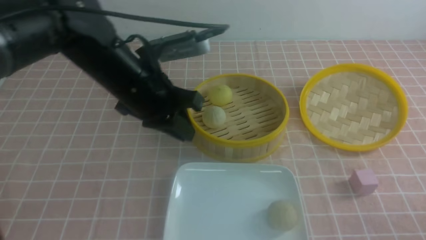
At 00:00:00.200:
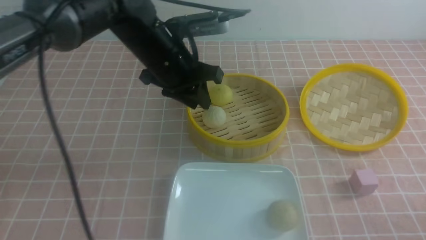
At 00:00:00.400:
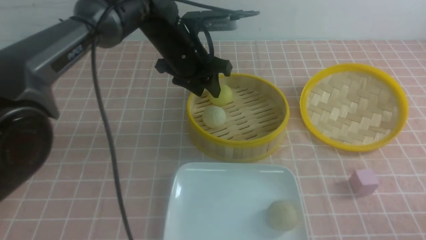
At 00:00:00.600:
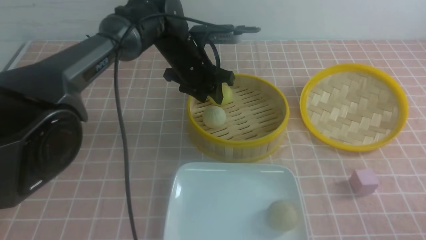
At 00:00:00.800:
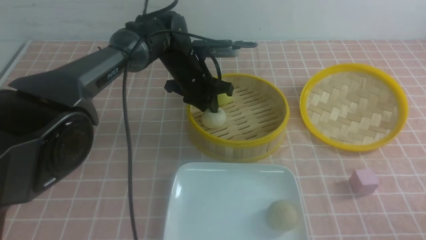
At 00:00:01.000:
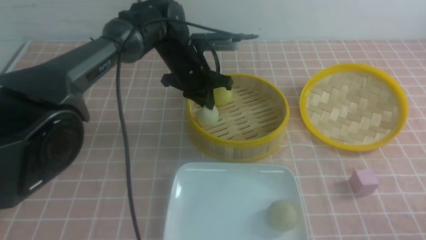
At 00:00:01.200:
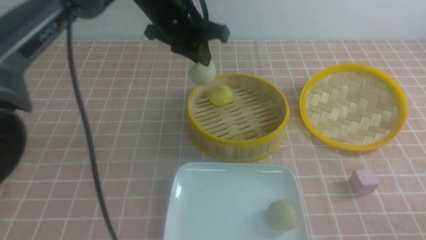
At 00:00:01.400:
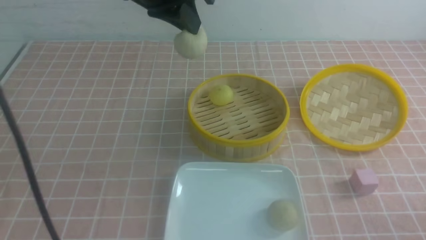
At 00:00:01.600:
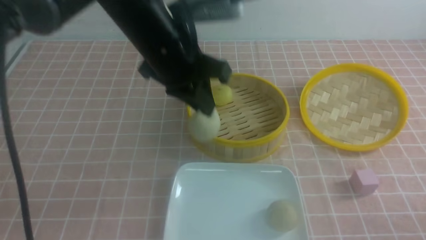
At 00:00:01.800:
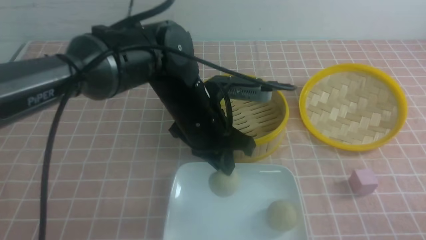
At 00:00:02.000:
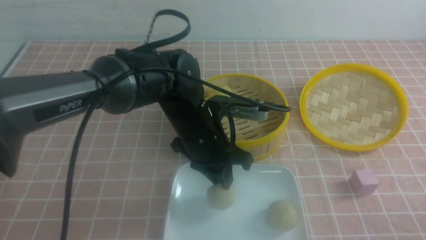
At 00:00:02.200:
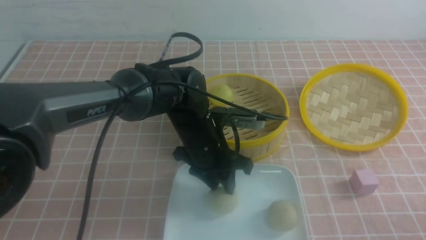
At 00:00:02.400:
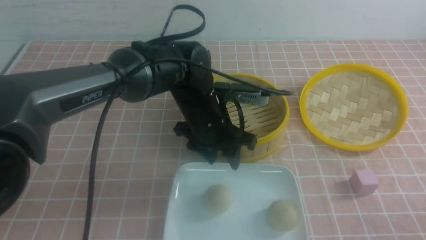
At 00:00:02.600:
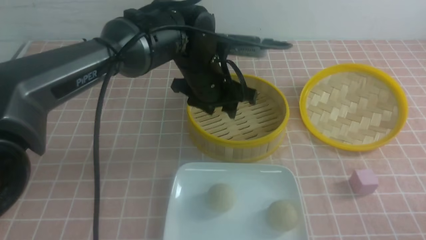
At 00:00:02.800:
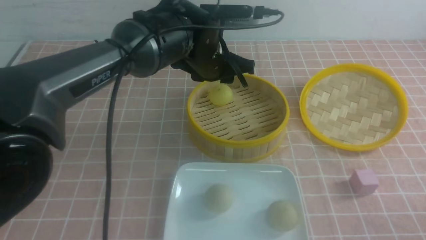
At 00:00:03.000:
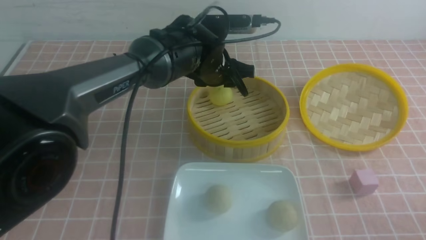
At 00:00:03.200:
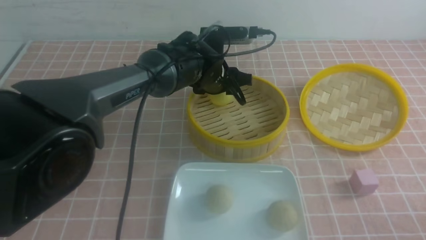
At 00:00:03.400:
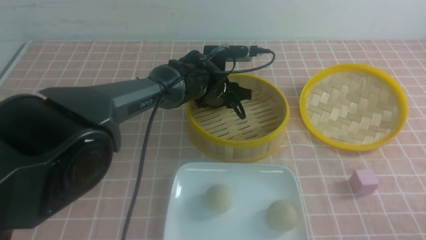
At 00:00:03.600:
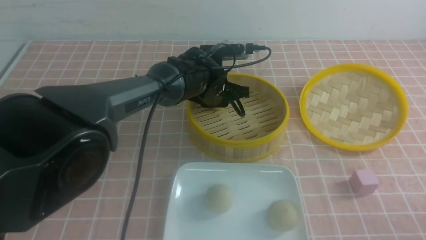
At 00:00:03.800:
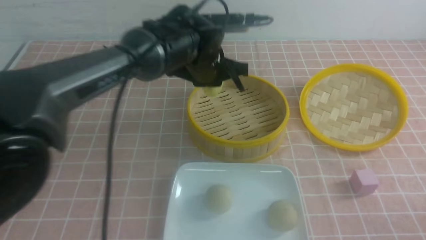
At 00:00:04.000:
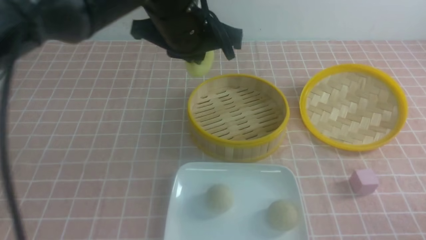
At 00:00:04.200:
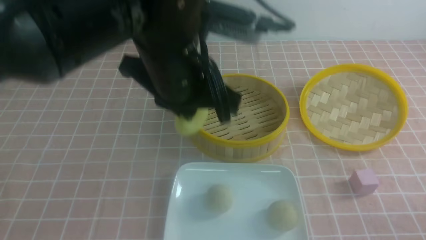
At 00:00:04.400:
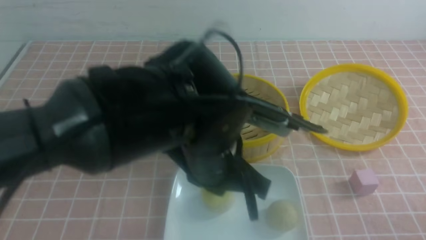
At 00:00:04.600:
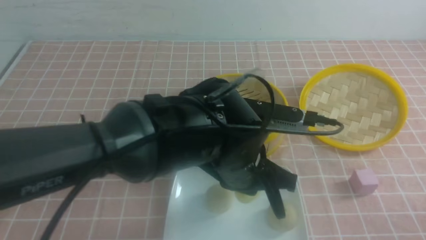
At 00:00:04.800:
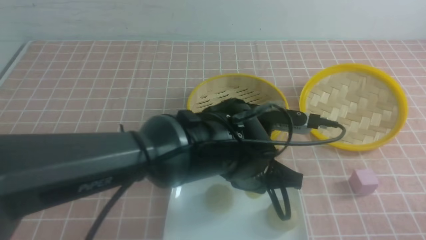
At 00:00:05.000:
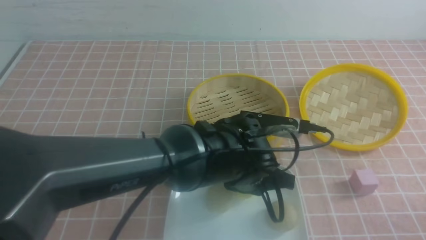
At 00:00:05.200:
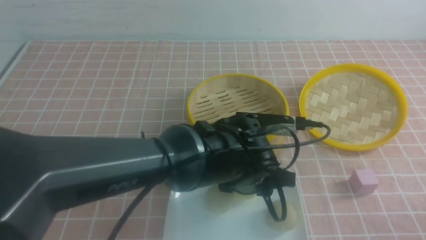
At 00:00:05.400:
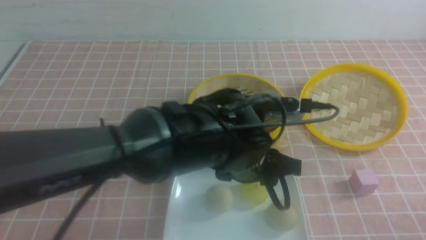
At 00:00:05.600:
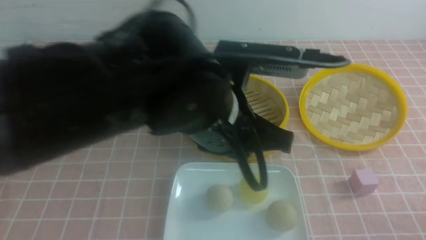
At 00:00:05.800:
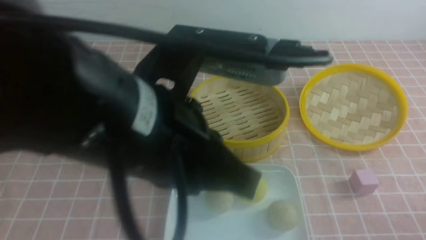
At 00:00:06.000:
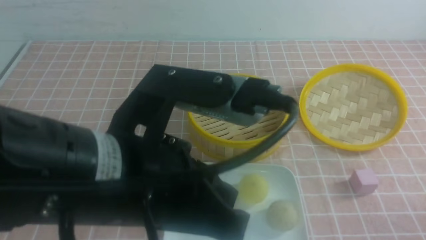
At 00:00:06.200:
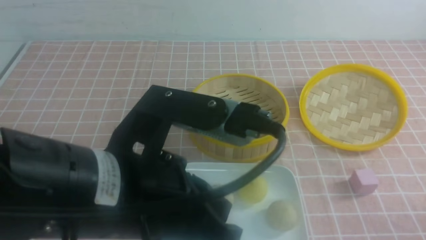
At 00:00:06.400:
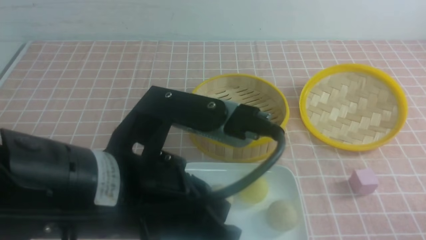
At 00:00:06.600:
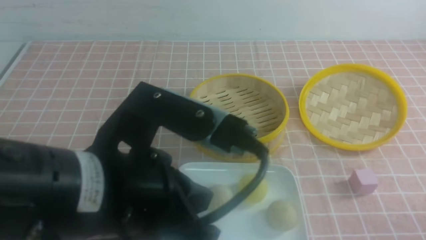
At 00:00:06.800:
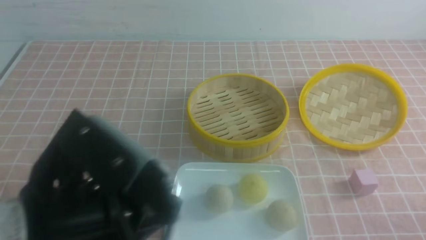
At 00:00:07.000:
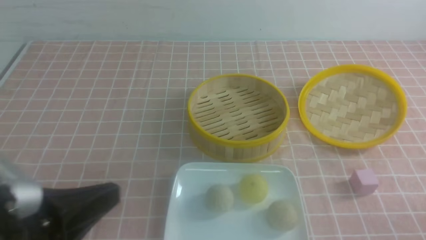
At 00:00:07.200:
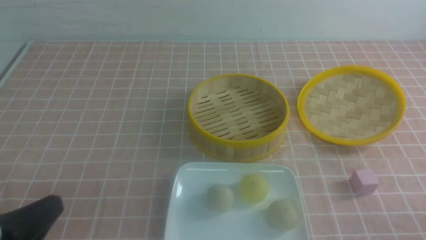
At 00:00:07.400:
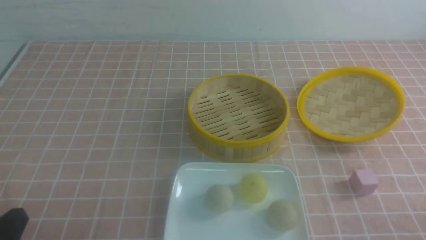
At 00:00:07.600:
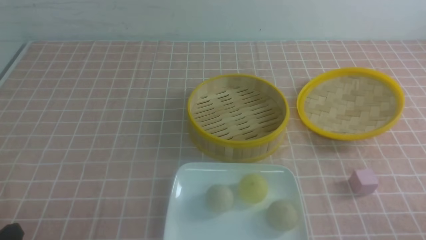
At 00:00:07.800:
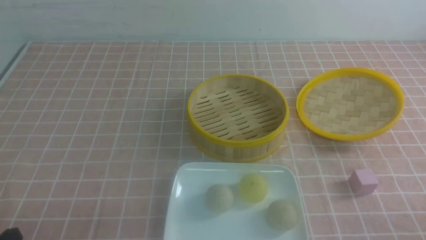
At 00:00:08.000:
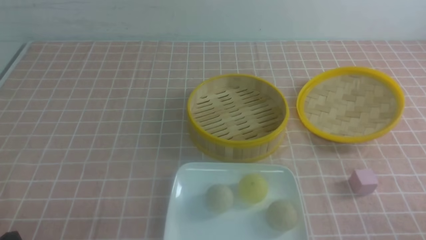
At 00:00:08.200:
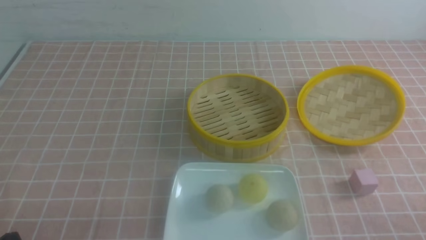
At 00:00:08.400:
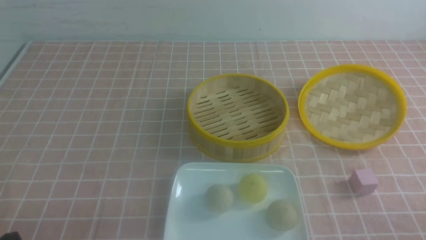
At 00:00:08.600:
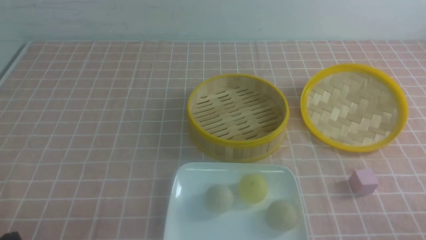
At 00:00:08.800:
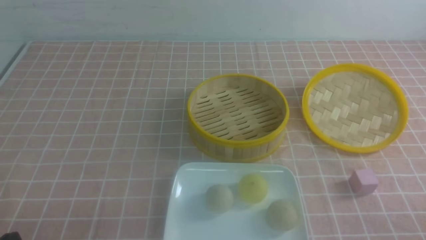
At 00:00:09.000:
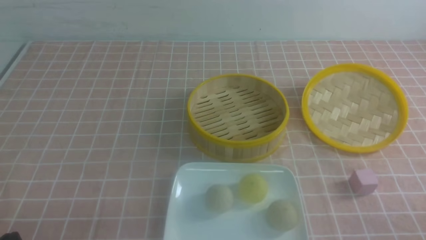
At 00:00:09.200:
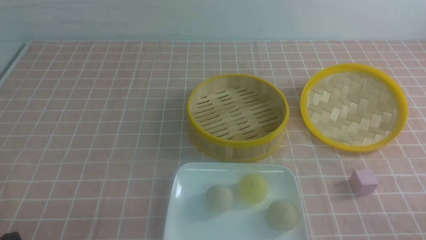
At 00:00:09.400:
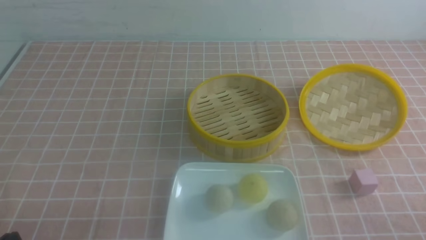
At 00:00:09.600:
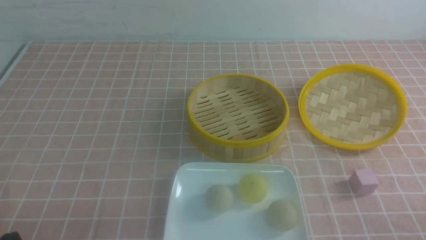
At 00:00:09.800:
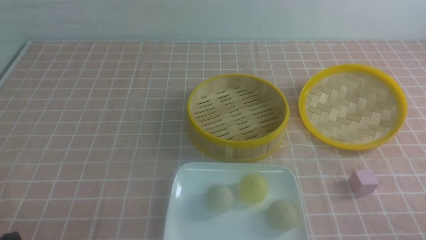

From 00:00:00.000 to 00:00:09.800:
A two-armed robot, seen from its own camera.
Step, from 00:00:01.000 to 00:00:02.200: use the left arm to put the steamed stuffed bun into the plate.
Step, from 00:00:02.400 to 00:00:03.400: use the left arm to grab the steamed stuffed bun that is closest to it.
Step, from 00:00:03.800 to 00:00:05.200: use the left arm to put the steamed stuffed bun into the plate.
From 00:00:00.000 to 00:00:01.400: The left gripper goes roughly 5 cm upward, and opens, then closes again.
From 00:00:01.400 to 00:00:02.800: The left gripper shifts roughly 15 cm downward and to the right, and opens up.
From 00:00:02.800 to 00:00:04.200: The left gripper shifts roughly 15 cm backward and upward, and closes.
From 00:00:04.200 to 00:00:05.600: The left gripper travels backward by about 5 cm, travels downward and back again, approximately 15 cm each way, and opens its fingers.
From 00:00:05.600 to 00:00:07.000: The left gripper goes some 20 cm to the left and backward, and closes up.
From 00:00:07.000 to 00:00:08.400: The left gripper travels downward and to the left by roughly 15 cm.
From 00:00:08.400 to 00:00:09.800: Both grippers stay put.
